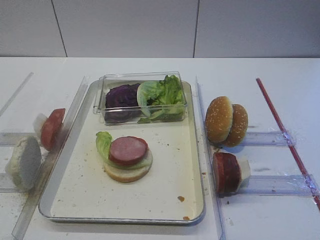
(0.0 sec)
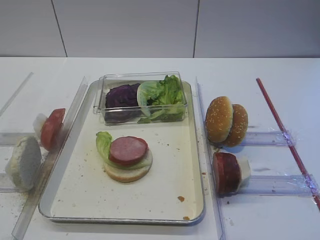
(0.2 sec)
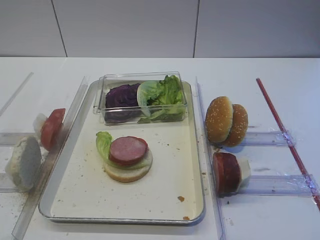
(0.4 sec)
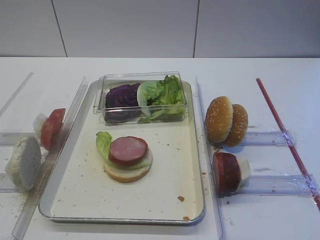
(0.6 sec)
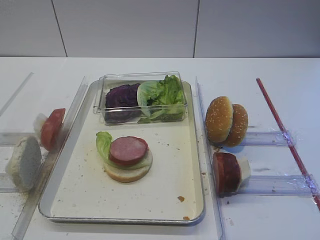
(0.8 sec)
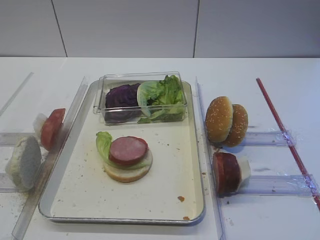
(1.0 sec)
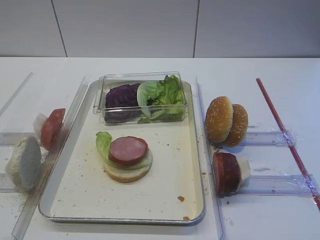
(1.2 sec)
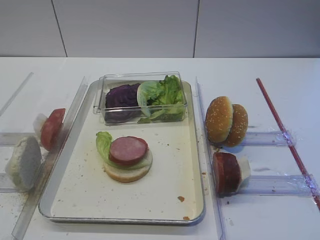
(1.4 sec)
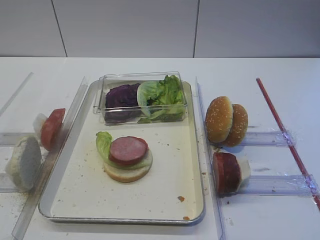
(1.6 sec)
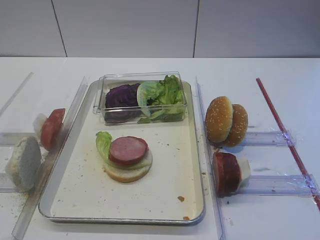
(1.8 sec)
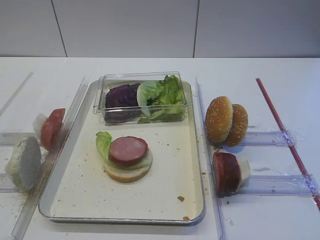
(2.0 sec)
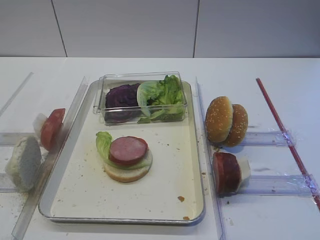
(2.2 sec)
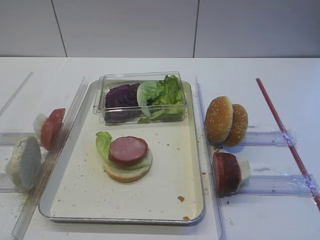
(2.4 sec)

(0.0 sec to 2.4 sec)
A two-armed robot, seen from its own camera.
0.0 sec - 2.4 sec: The two grippers keep their place.
